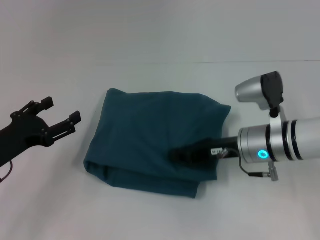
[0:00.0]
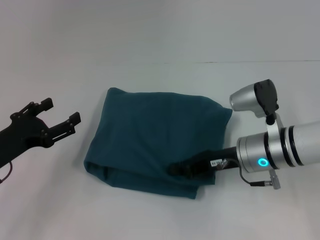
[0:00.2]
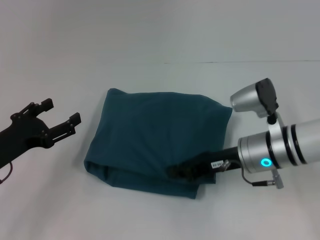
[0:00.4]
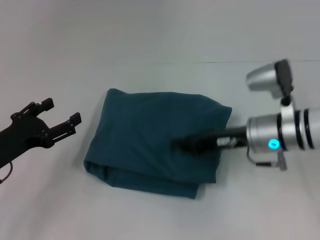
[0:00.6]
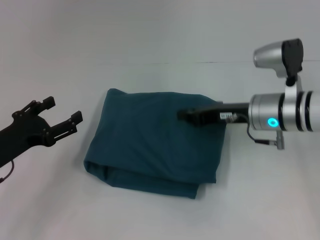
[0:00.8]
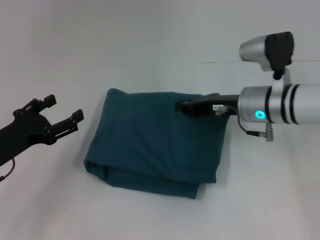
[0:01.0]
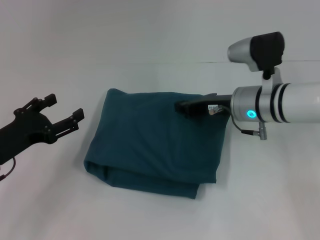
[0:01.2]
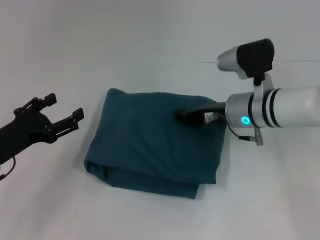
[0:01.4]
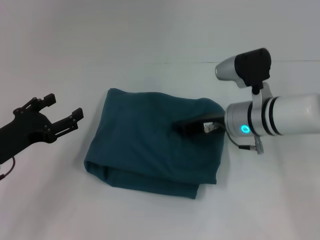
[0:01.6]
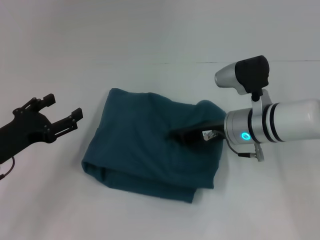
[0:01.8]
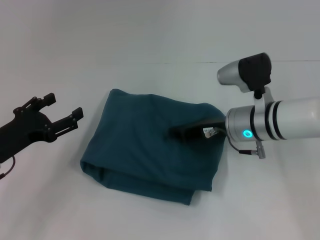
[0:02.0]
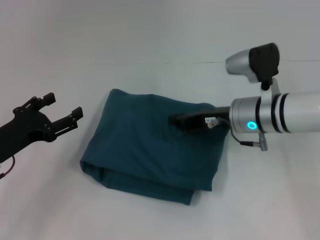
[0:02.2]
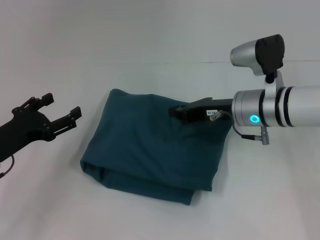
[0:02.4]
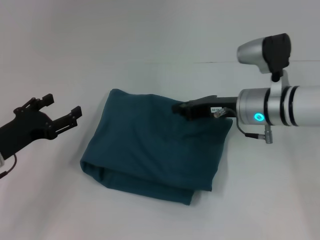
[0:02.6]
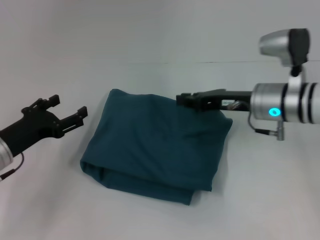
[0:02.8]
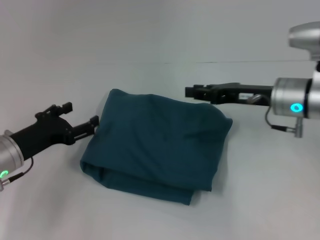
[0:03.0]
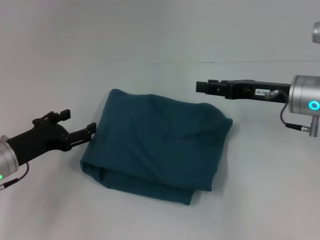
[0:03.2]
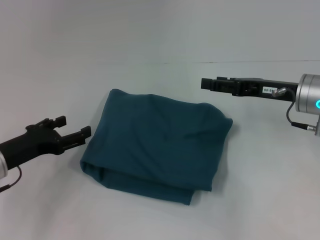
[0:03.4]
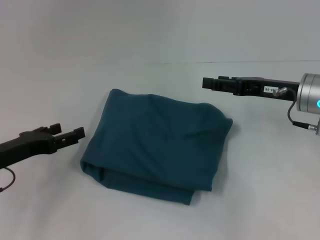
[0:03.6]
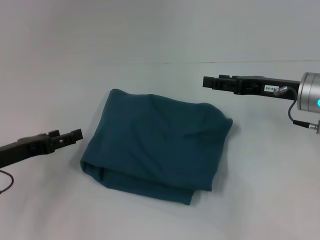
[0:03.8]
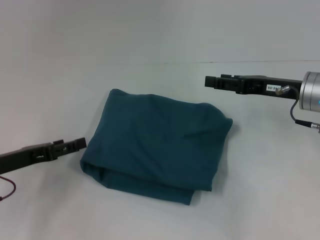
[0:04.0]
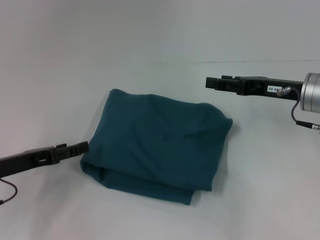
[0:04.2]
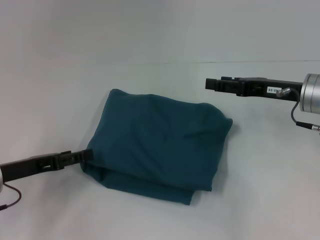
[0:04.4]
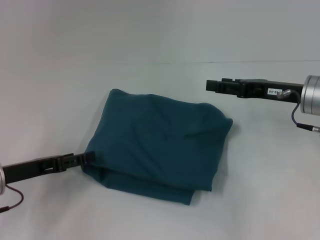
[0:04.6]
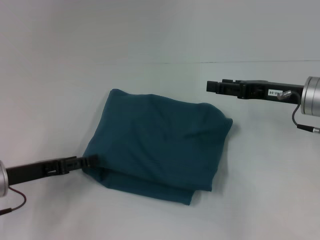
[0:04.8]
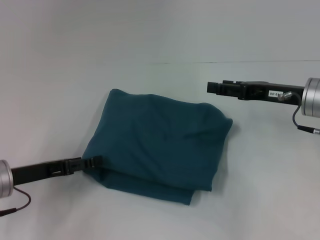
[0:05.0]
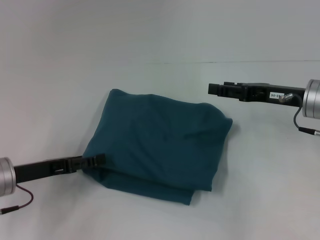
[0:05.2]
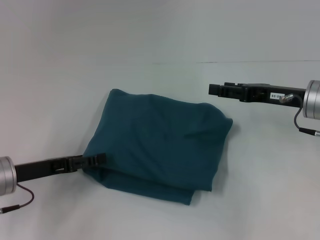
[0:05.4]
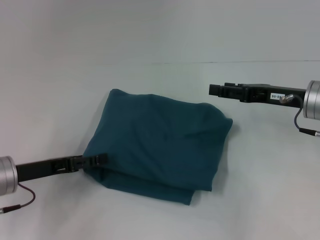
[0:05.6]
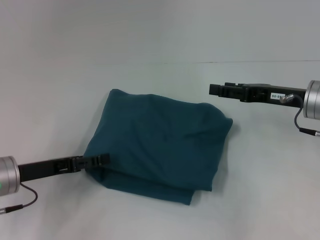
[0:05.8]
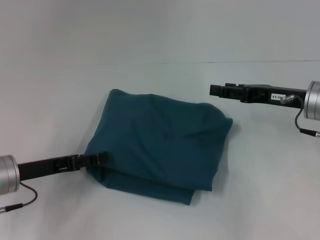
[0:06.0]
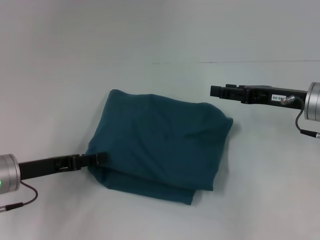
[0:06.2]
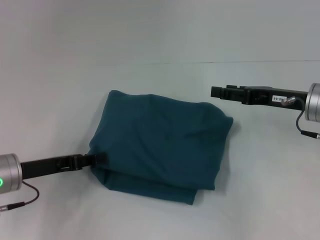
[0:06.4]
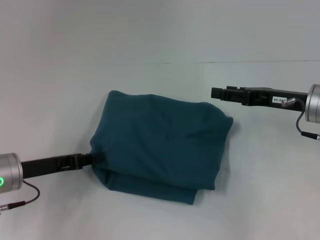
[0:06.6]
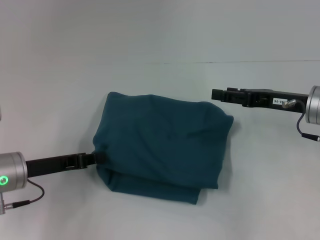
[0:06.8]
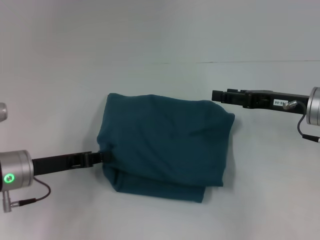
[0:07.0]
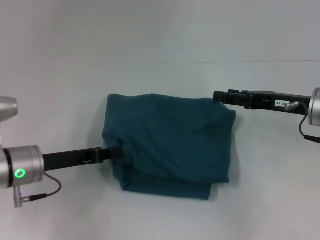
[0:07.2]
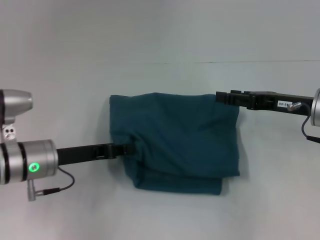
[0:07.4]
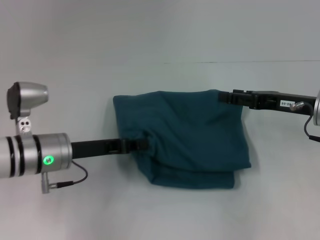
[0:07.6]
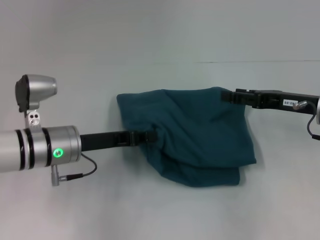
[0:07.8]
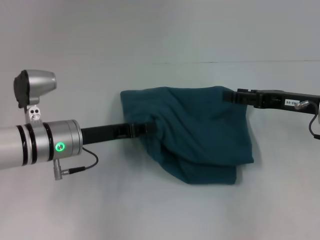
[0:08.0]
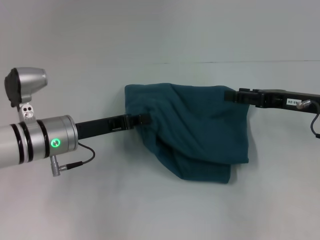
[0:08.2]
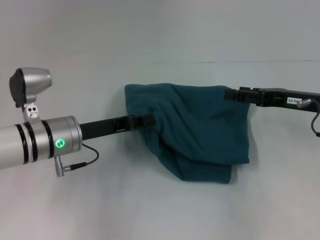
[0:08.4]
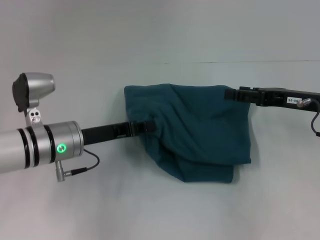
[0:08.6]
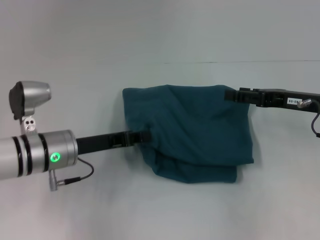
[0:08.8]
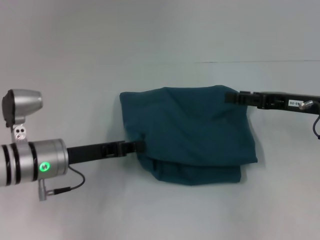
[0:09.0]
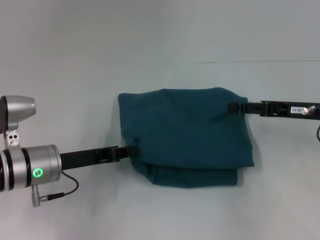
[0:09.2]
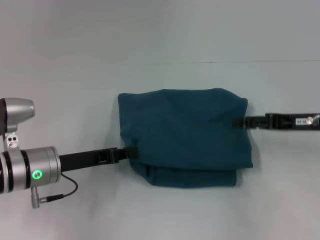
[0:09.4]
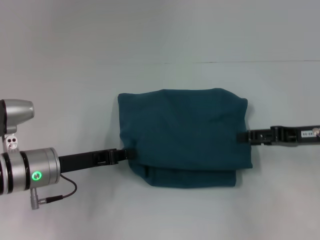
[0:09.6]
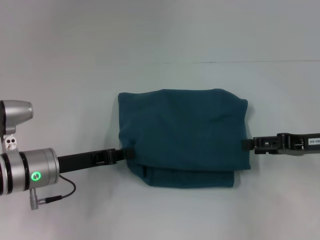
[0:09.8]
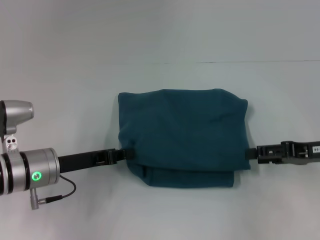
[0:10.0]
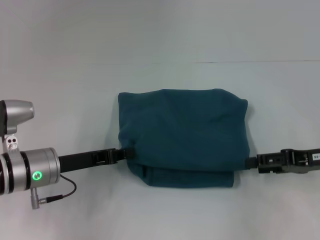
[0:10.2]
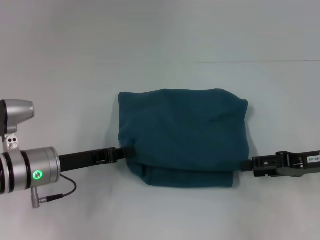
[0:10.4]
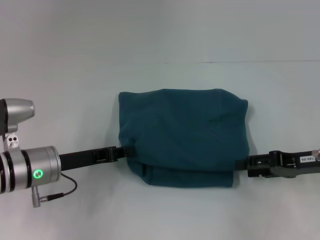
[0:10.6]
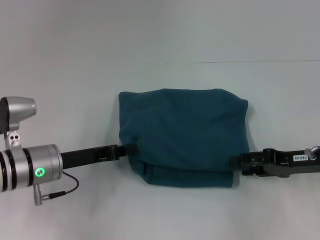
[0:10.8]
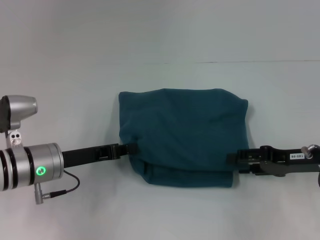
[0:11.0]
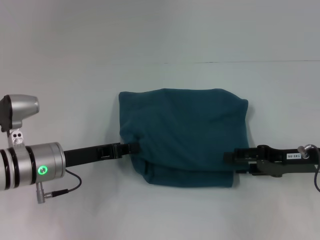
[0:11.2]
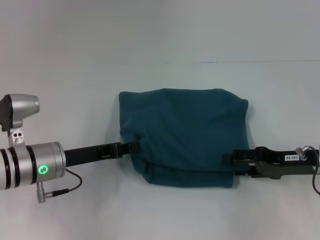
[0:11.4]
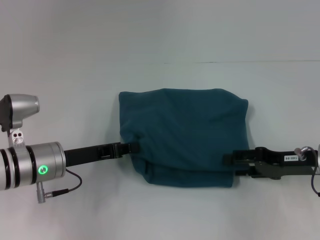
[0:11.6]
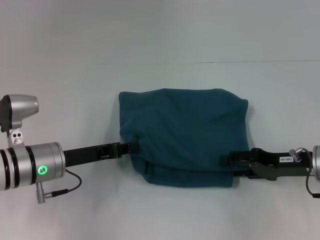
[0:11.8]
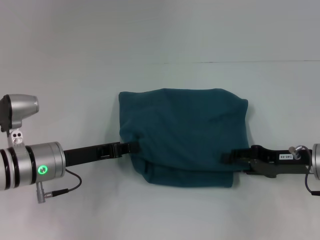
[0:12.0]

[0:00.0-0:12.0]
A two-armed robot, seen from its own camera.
0:00.0 to 0:01.6: There are only small adjustments of the grippers.
0:01.6 to 0:03.0: The right gripper travels to the right by some 5 cm.
0:03.0 to 0:04.4: The right gripper opens its fingers.
0:04.4 to 0:06.0: The grippers move only a little.
0:06.0 to 0:07.6: The left gripper moves to the right, some 5 cm, and closes up.
0:07.6 to 0:09.0: The grippers stay close to where they were, moving slightly.
0:09.0 to 0:10.4: The right gripper shifts by some 5 cm.
0:10.4 to 0:12.0: There are only small adjustments of the grippers.

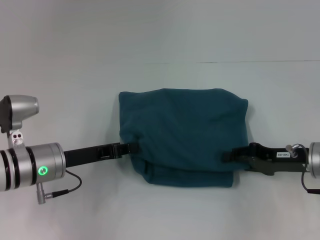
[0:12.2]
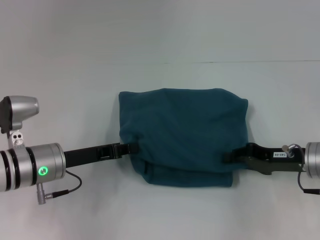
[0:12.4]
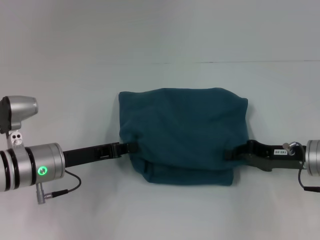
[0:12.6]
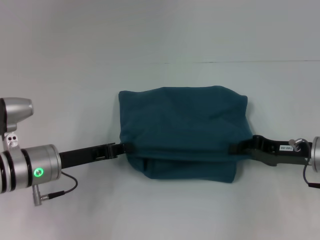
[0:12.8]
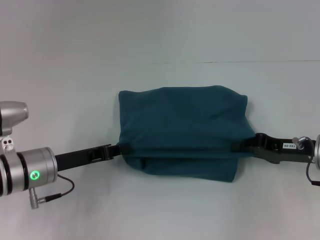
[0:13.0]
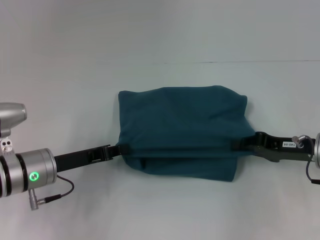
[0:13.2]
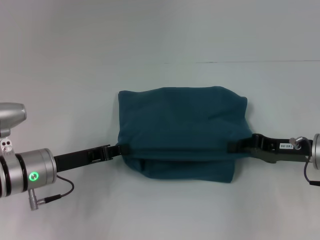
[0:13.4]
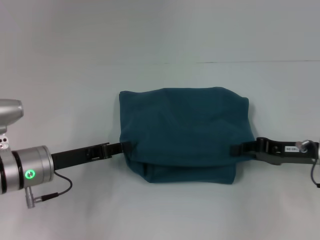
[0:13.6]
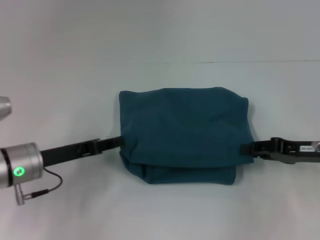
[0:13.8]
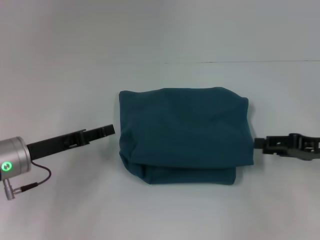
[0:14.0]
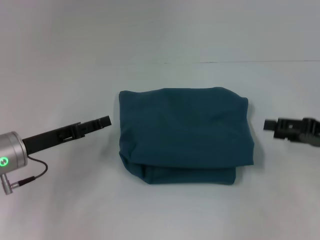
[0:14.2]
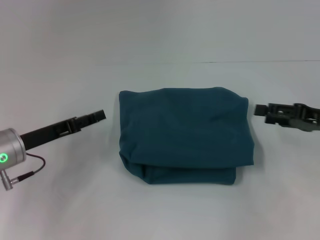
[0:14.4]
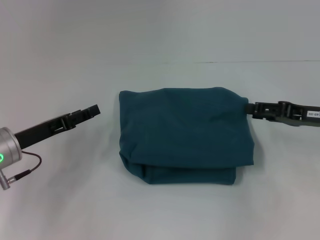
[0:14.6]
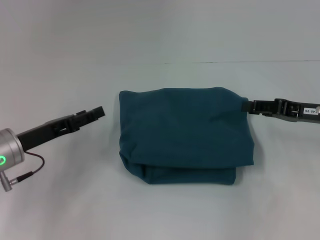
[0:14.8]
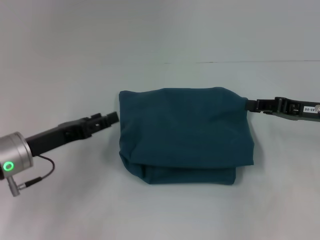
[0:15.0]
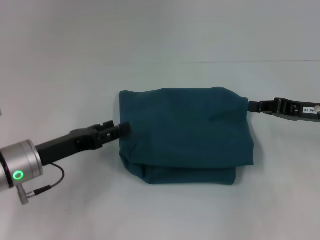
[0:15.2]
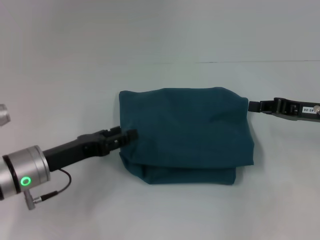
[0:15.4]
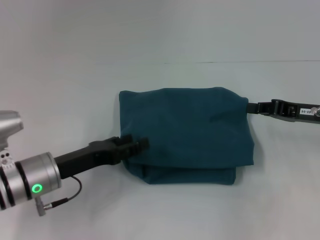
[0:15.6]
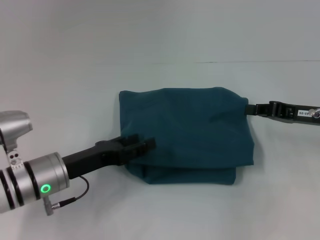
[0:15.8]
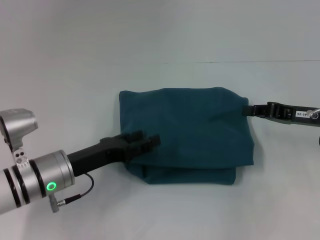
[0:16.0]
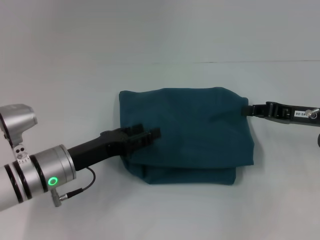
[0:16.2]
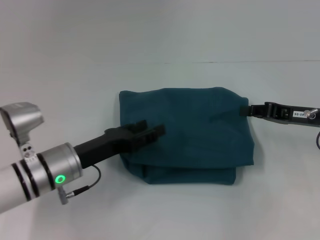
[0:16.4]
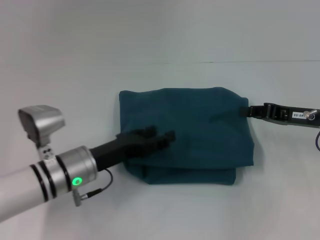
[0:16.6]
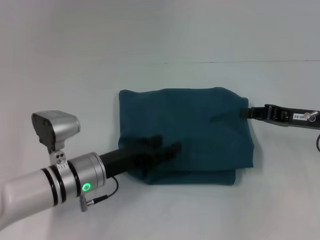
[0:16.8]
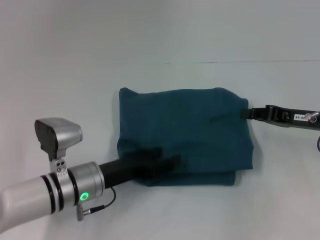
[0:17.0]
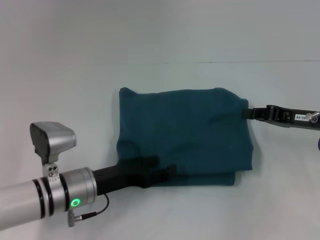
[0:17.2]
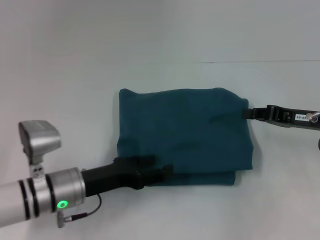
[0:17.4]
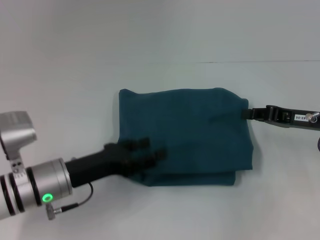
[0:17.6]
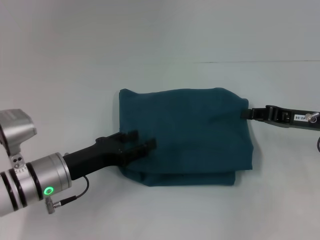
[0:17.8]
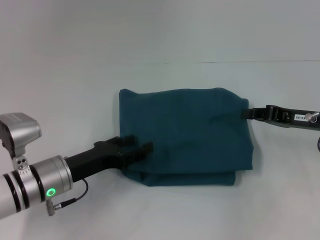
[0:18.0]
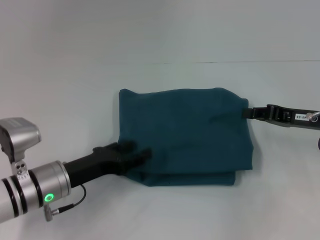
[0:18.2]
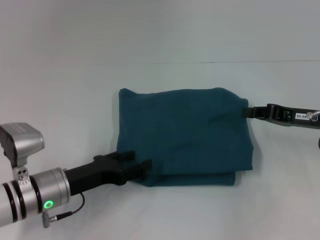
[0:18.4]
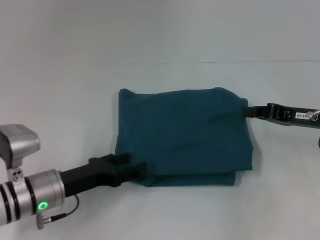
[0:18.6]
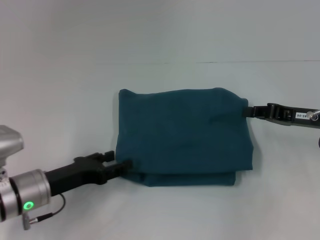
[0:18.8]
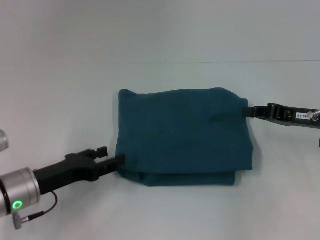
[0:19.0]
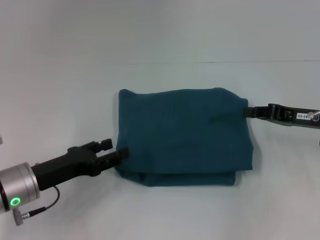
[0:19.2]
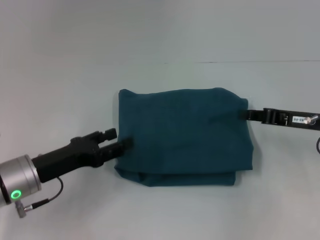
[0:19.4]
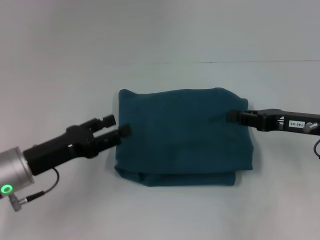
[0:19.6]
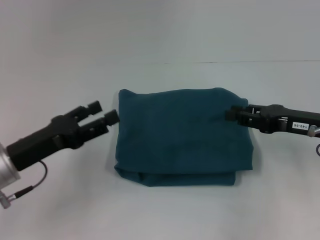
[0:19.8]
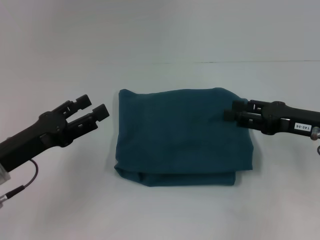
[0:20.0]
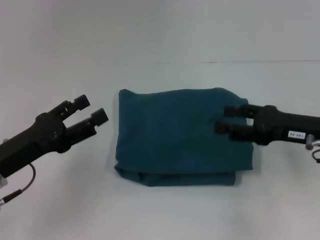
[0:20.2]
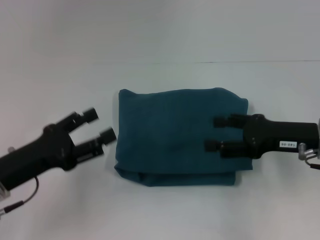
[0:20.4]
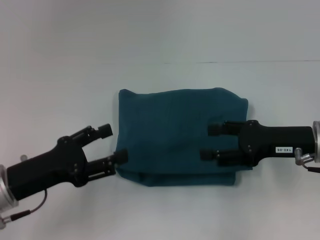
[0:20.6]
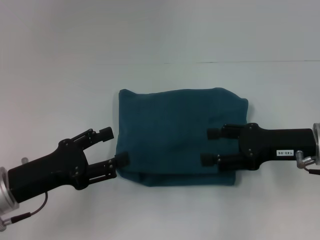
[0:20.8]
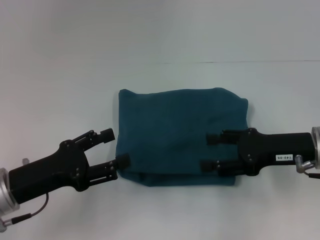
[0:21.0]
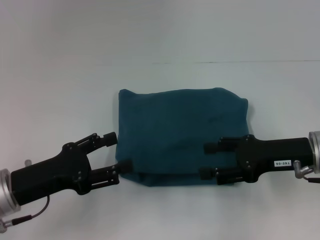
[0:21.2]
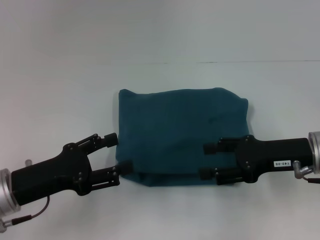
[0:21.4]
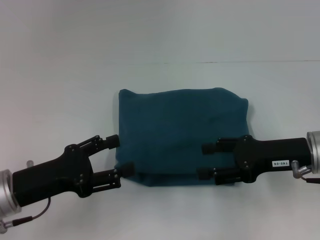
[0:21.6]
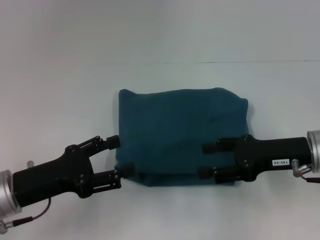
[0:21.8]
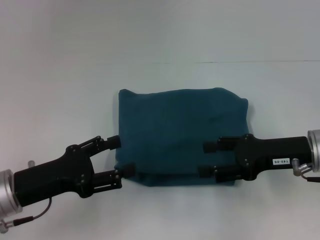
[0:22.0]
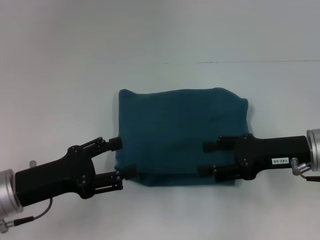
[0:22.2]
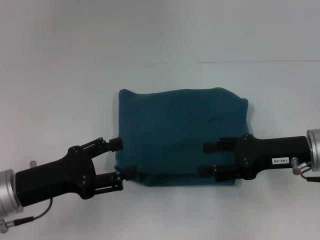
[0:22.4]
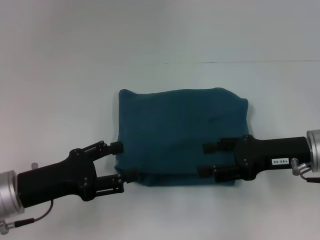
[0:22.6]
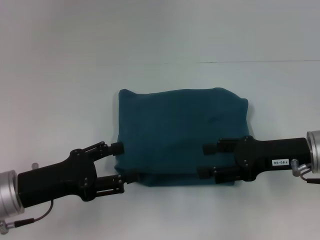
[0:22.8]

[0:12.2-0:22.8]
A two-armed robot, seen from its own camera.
0:12.2 to 0:13.8: The right gripper closes.
0:13.8 to 0:15.2: The left gripper opens. Meanwhile the right gripper opens, then closes again.
0:15.2 to 0:16.8: The left gripper is displaced to the right by approximately 10 cm.
0:16.8 to 0:18.2: The left gripper shifts by approximately 5 cm.
0:18.2 to 0:19.8: The left gripper goes approximately 5 cm upward and to the left.
0:19.8 to 0:21.2: The right gripper opens up.
0:21.2 to 0:22.8: Both grippers stay about where they are.
